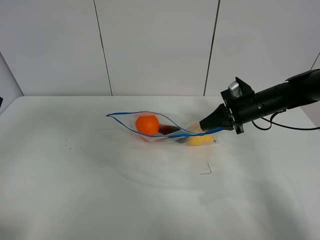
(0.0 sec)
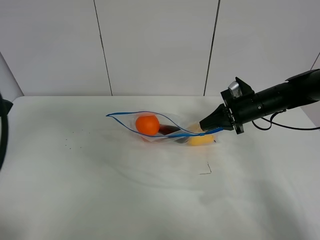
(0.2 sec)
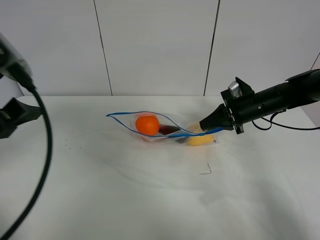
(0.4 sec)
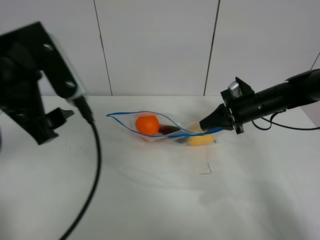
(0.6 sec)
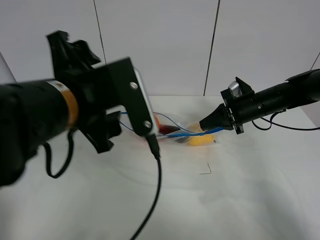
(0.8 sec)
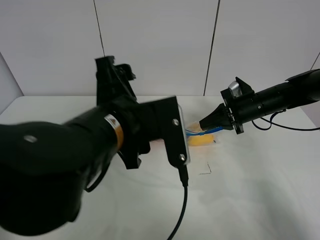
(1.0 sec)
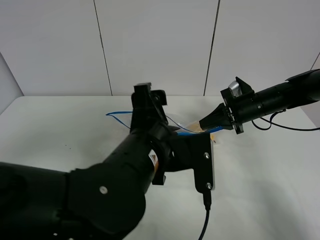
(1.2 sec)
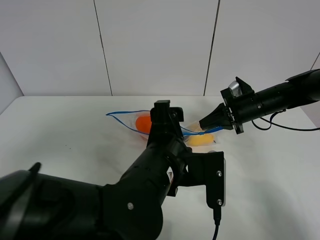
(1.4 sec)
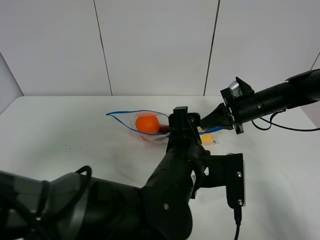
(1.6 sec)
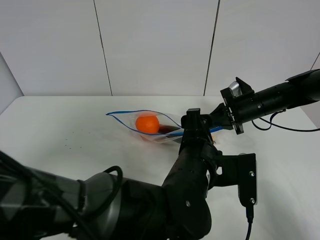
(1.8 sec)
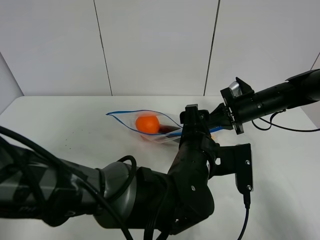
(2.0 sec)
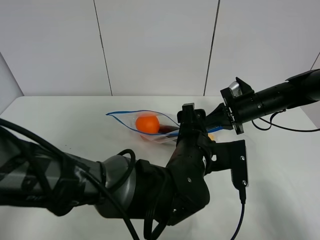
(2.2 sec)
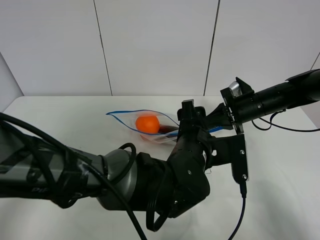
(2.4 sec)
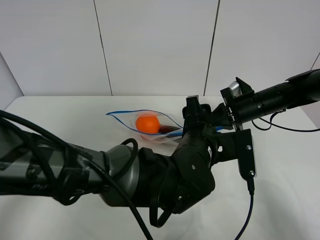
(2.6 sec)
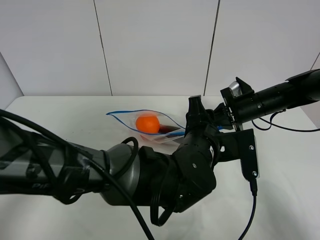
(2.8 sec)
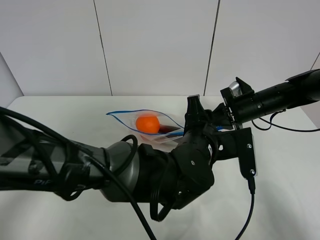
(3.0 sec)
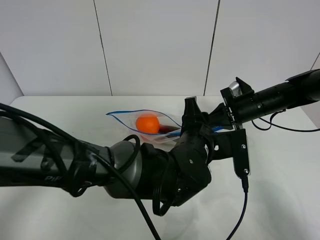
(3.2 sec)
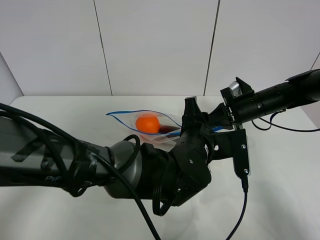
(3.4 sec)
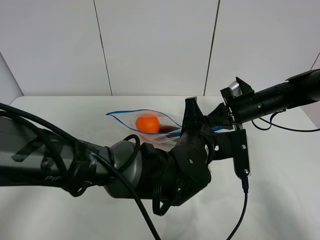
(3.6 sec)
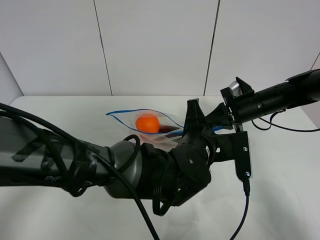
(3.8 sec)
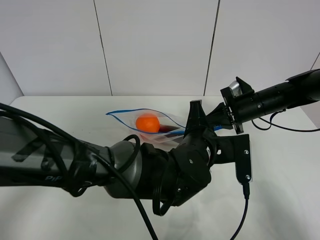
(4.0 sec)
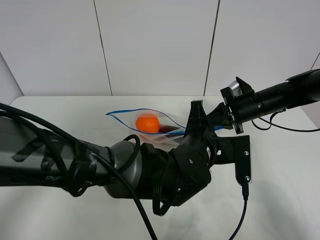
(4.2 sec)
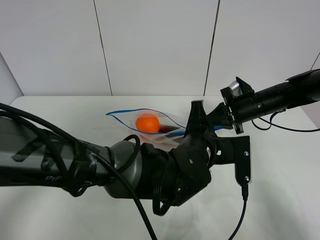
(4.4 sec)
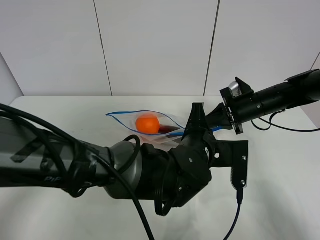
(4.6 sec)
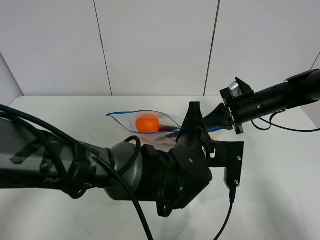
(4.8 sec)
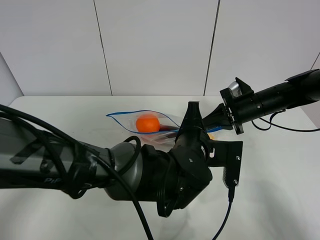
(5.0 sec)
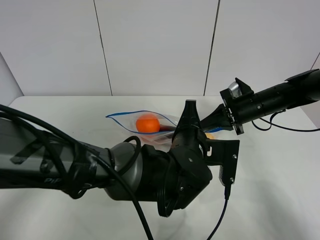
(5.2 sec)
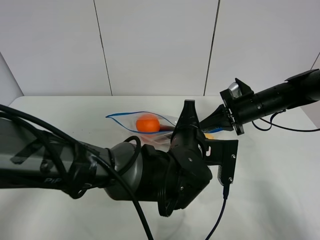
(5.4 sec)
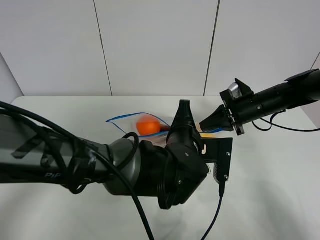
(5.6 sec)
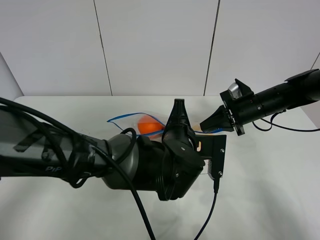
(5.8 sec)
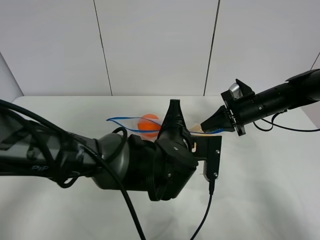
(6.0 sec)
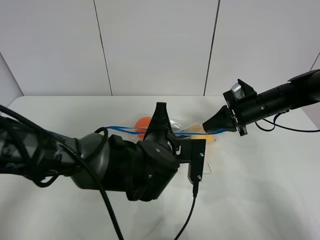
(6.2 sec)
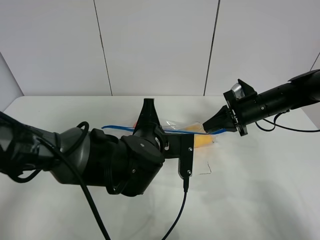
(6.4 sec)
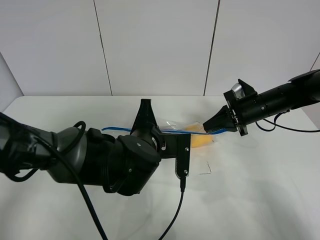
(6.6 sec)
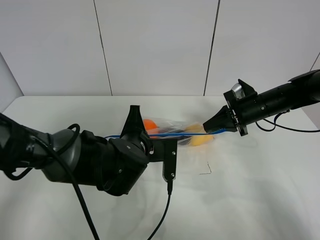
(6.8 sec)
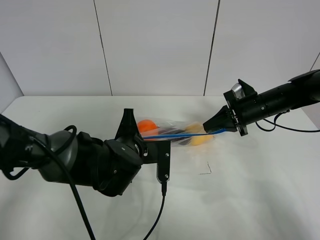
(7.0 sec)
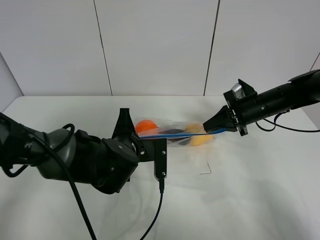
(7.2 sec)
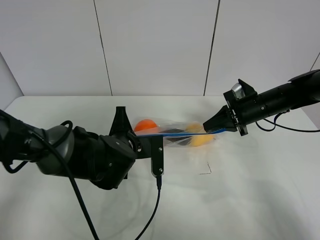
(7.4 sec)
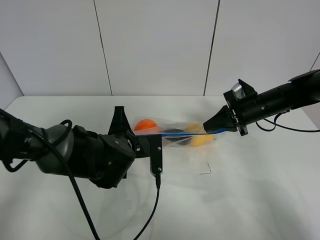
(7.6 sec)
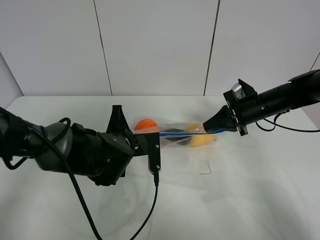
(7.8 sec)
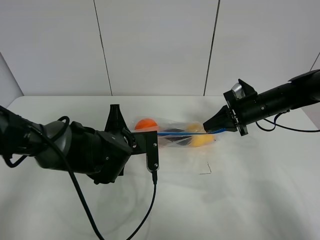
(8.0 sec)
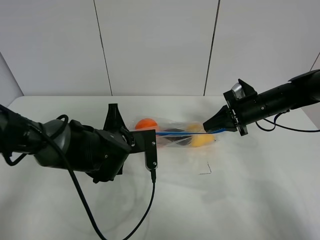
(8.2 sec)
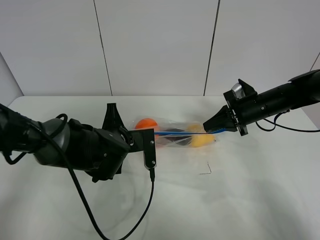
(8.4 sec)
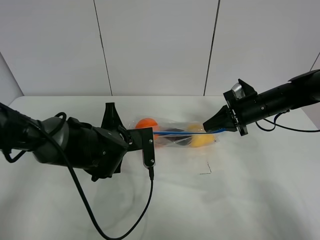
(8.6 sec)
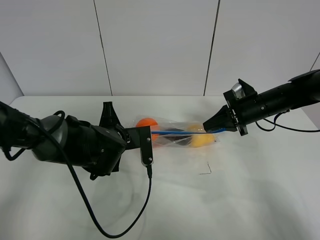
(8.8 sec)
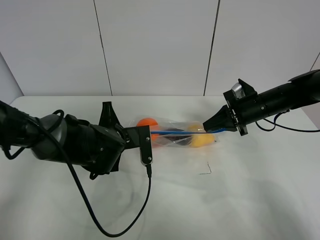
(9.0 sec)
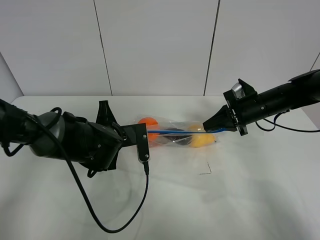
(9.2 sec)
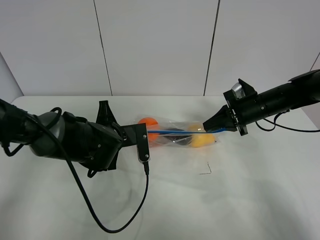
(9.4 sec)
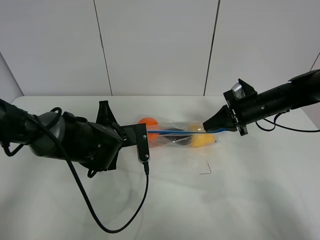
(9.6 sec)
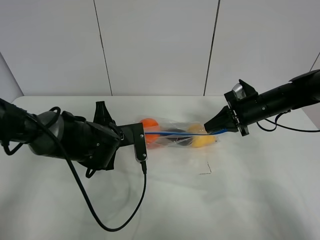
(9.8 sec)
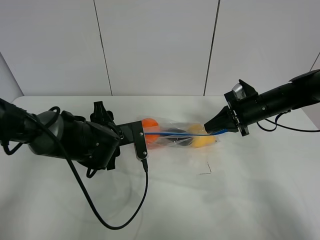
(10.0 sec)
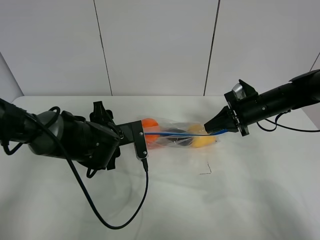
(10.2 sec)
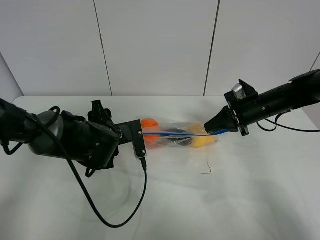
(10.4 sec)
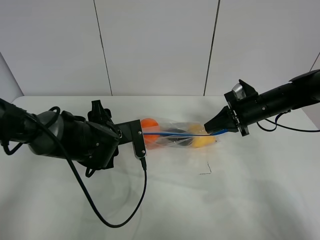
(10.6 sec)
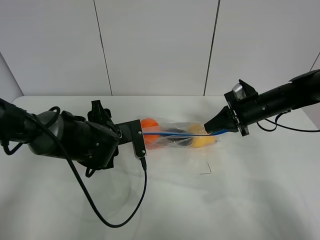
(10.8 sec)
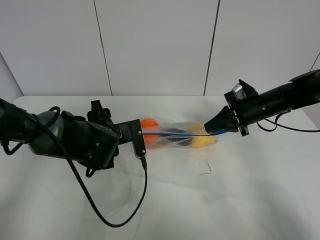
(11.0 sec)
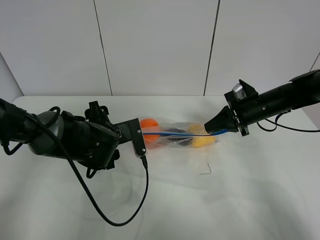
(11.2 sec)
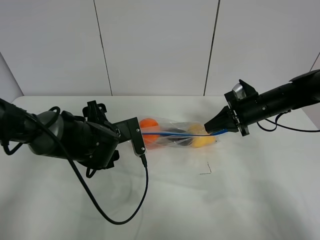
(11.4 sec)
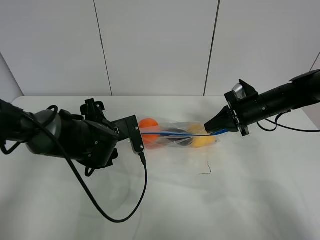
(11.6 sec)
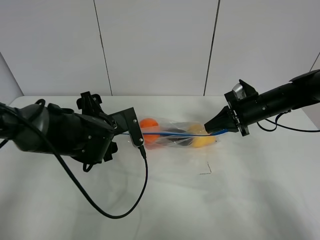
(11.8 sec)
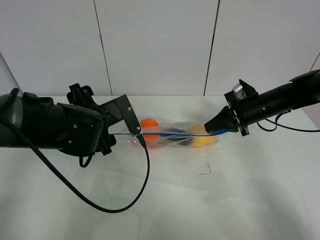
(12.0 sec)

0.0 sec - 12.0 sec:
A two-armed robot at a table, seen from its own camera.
Step, 0.0 sec - 10.6 sec: Pull the fruit bag with left gripper.
0.0 sec - 1.6 sec: The left gripper travels to the right and downward by about 40 cm.
1.6 sec - 3.0 sec: The left gripper is displaced forward by about 5 cm, and closes.
3.0 sec - 4.4 sec: The left gripper closes.
4.4 sec - 6.0 sec: The grippers make only small movements.
6.0 sec - 7.6 sec: The left gripper is displaced to the left by about 10 cm.
7.6 sec - 9.0 sec: The grippers make only small movements.
9.0 sec - 10.4 sec: The left gripper opens up.
10.4 sec - 12.0 sec: The left gripper heads upward, covering some 5 cm.

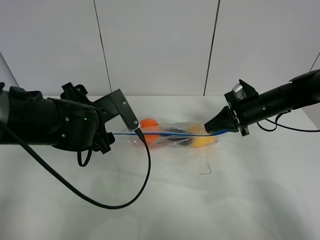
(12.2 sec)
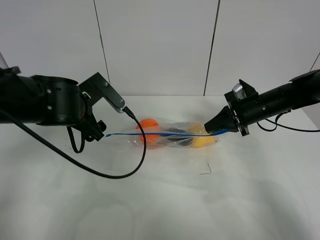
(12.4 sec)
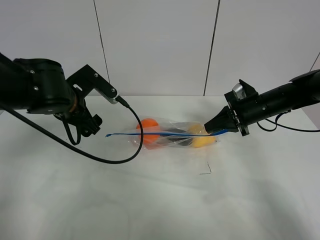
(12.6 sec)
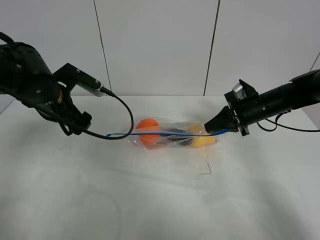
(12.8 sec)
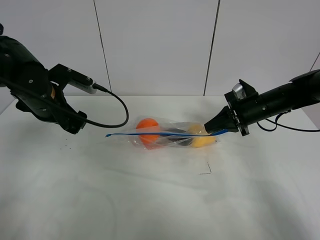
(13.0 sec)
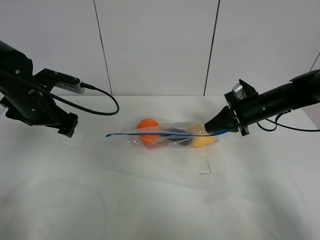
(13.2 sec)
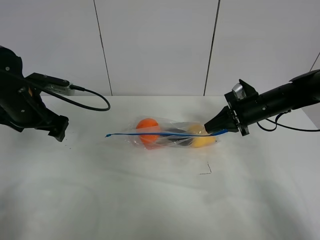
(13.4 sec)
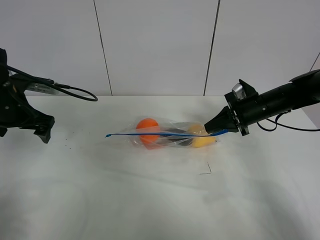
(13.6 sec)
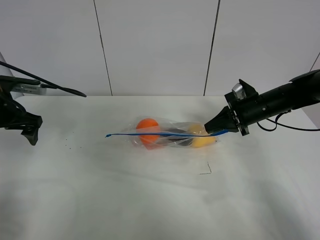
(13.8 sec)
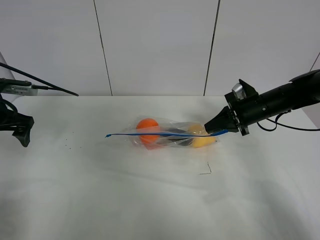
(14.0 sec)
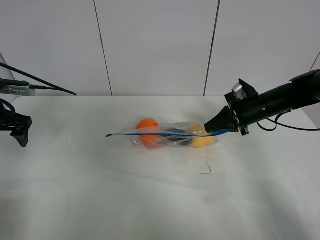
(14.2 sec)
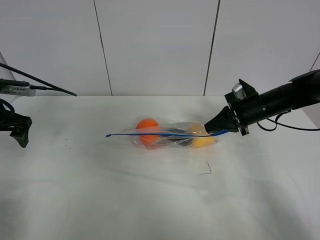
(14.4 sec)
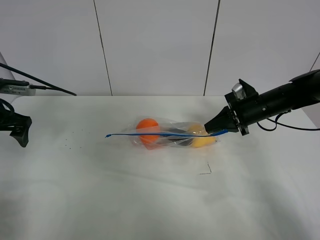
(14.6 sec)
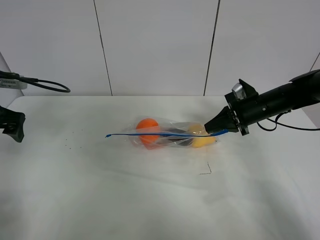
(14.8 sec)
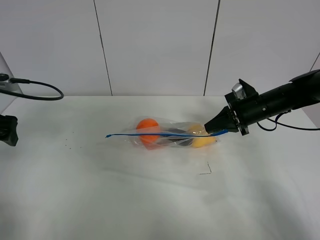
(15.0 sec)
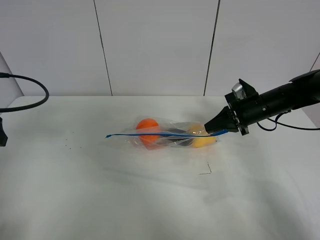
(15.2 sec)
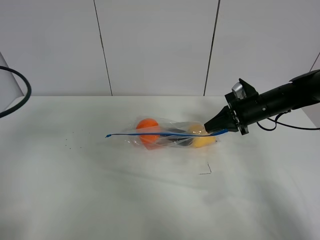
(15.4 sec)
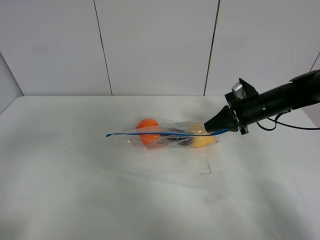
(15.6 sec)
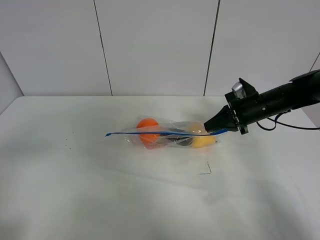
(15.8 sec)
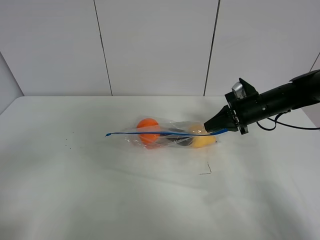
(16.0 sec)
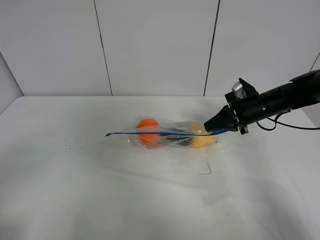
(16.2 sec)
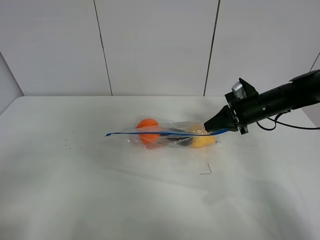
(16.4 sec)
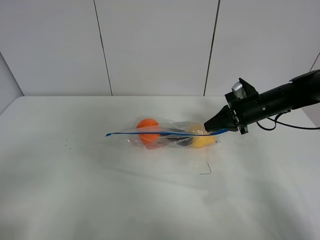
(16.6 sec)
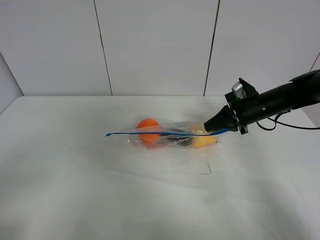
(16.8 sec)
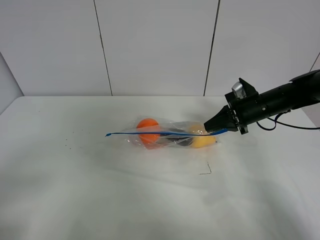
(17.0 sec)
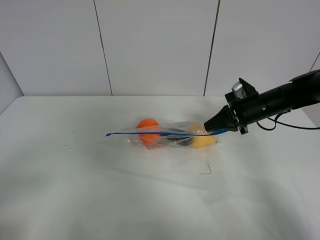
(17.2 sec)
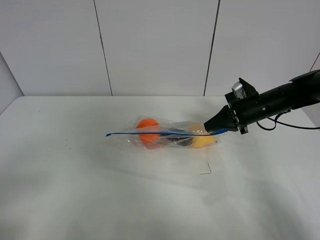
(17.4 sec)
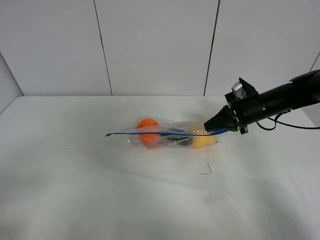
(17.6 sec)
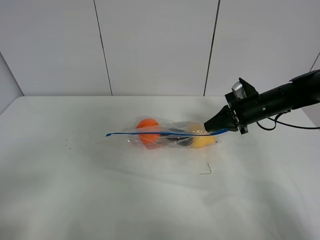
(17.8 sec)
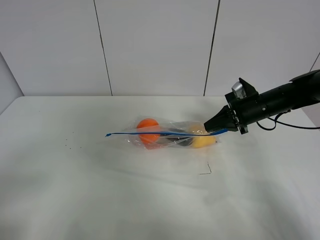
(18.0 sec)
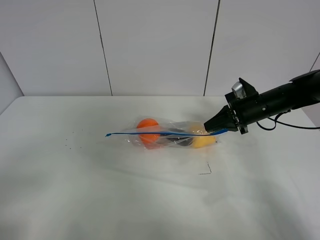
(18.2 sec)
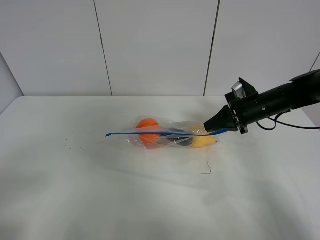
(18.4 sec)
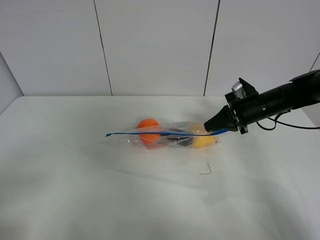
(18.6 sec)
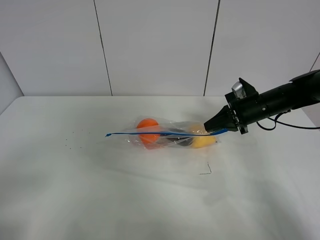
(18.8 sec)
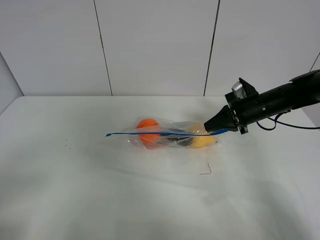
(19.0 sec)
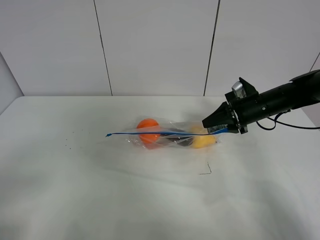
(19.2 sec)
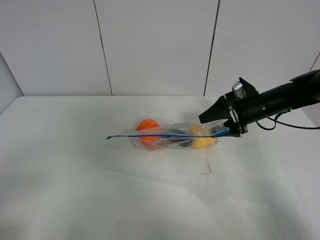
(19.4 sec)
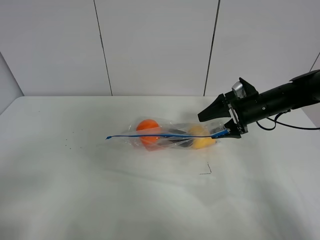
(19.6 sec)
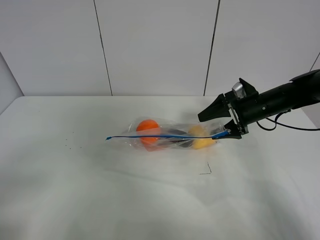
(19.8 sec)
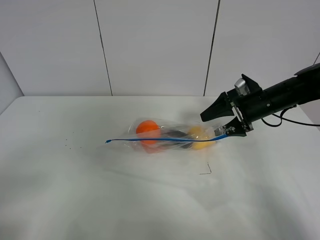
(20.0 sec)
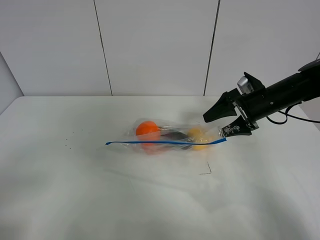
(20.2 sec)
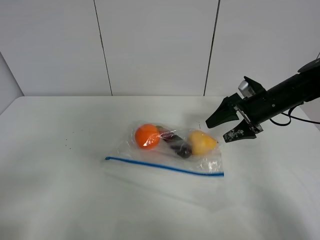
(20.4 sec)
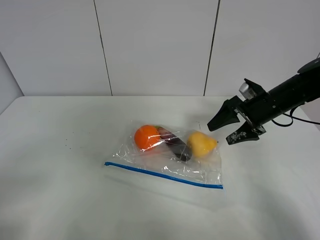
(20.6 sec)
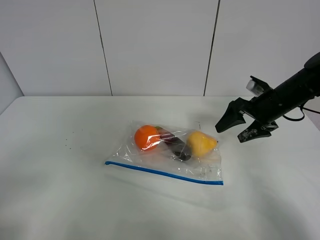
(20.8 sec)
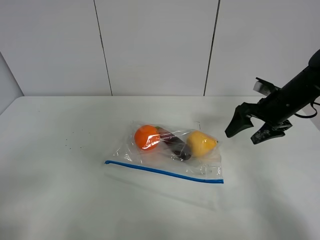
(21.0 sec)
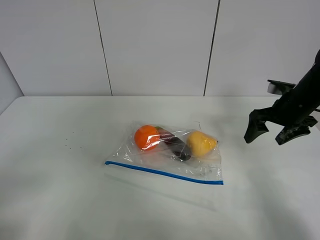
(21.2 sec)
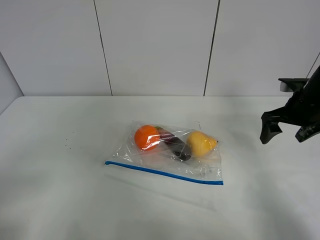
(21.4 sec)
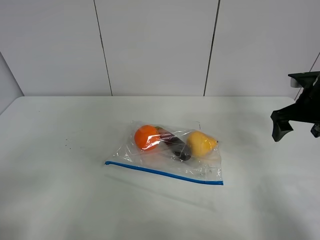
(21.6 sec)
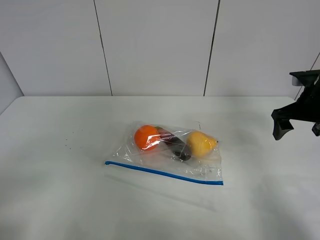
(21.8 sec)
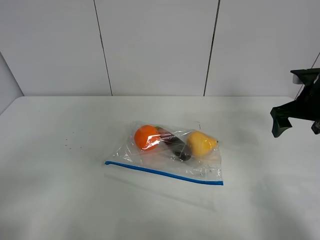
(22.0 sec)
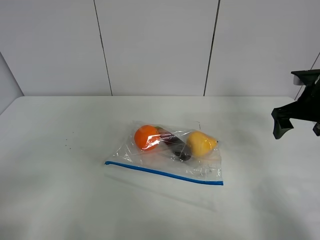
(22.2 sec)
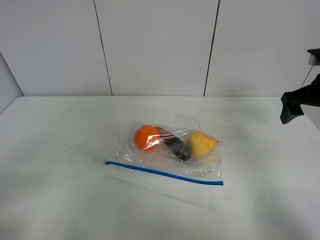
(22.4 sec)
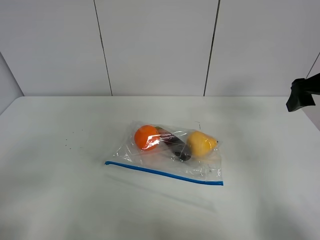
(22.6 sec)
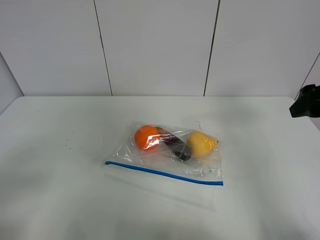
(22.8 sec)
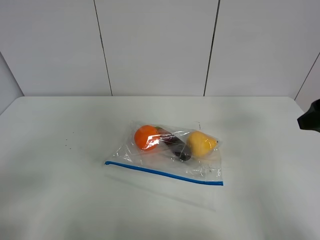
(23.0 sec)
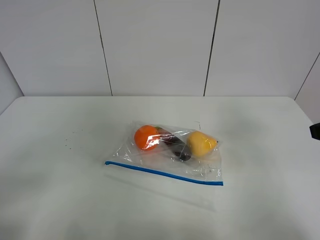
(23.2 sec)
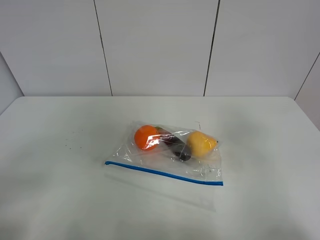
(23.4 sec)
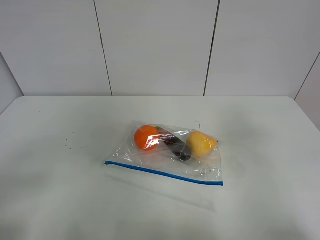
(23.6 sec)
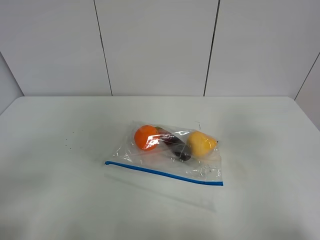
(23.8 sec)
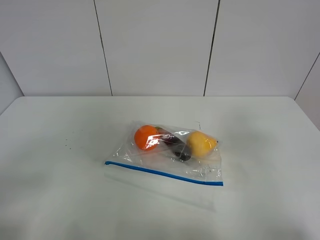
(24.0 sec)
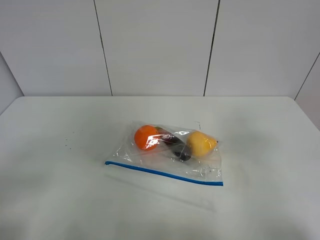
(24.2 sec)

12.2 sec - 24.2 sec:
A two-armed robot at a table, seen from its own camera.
12.2 sec - 13.8 sec: The left gripper goes approximately 20 cm to the left.
13.8 sec - 15.2 sec: The left gripper goes roughly 15 cm backward and upward.
15.2 sec - 16.6 sec: The left gripper shifts roughly 20 cm backward.
18.2 sec - 19.8 sec: The right gripper opens up.
19.8 sec - 21.2 sec: The right gripper moves to the right, some 5 cm.
21.2 sec - 22.6 sec: The right gripper is displaced upward and backward by some 10 cm.
22.6 sec - 24.2 sec: The right gripper moves backward, approximately 20 cm.
